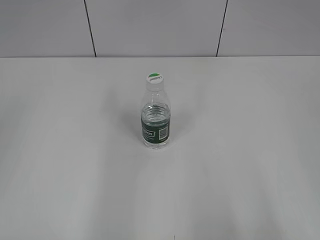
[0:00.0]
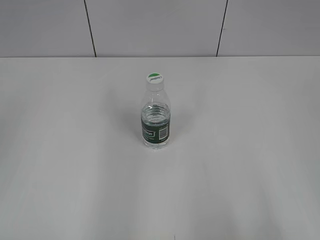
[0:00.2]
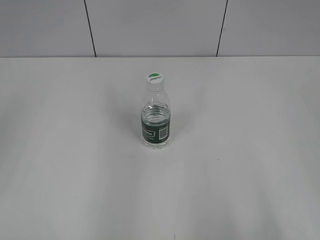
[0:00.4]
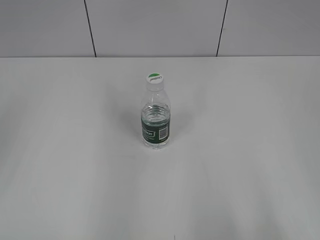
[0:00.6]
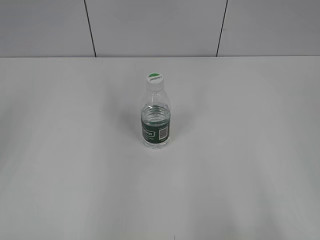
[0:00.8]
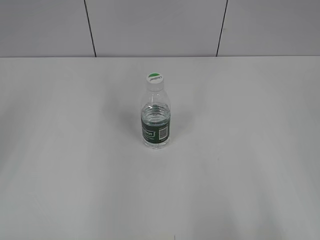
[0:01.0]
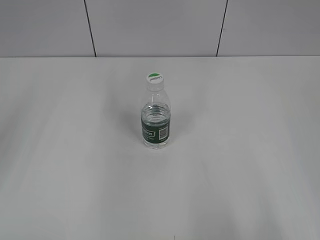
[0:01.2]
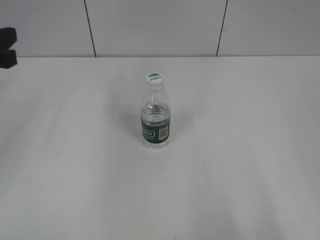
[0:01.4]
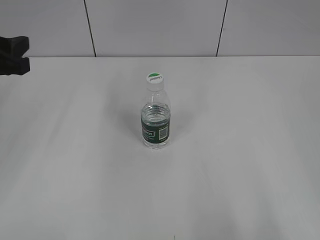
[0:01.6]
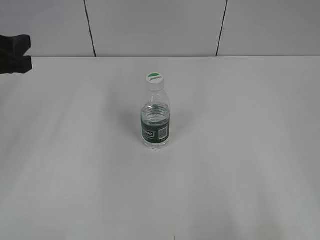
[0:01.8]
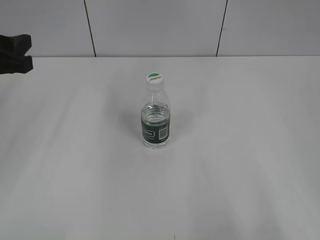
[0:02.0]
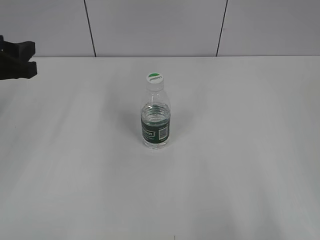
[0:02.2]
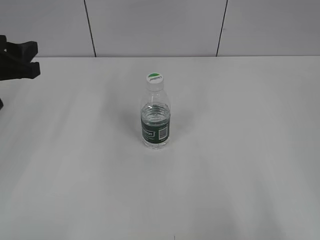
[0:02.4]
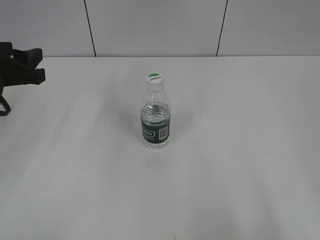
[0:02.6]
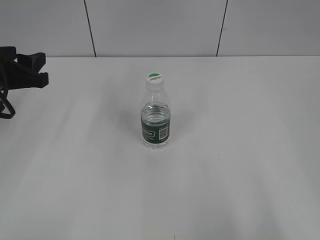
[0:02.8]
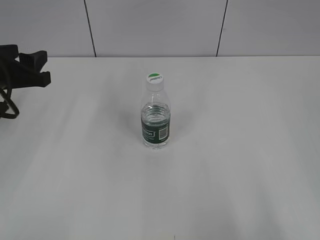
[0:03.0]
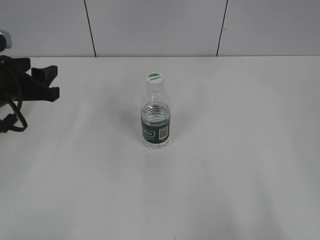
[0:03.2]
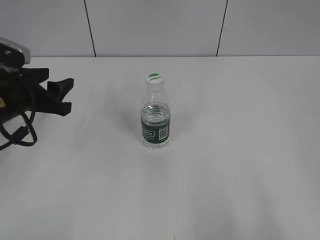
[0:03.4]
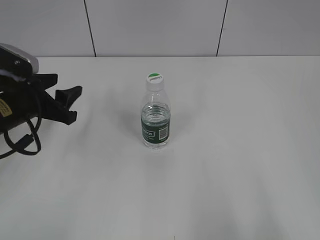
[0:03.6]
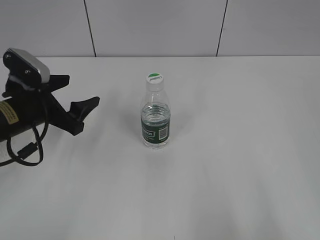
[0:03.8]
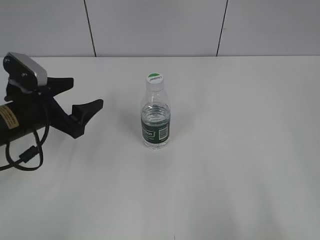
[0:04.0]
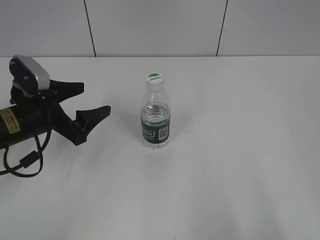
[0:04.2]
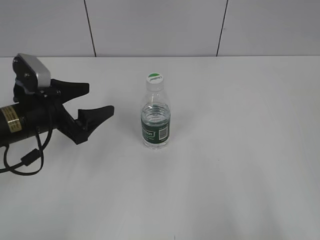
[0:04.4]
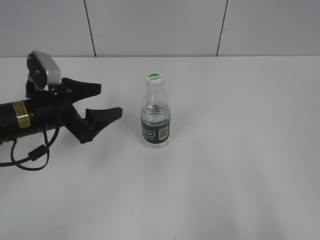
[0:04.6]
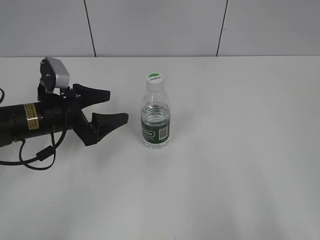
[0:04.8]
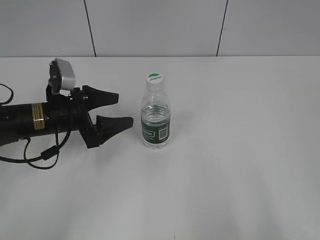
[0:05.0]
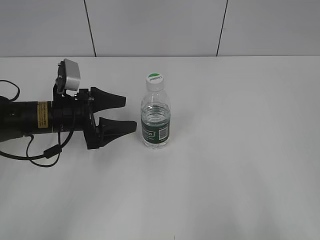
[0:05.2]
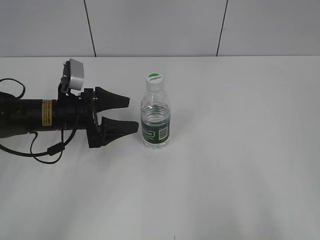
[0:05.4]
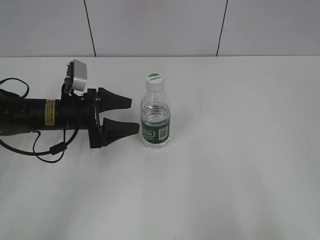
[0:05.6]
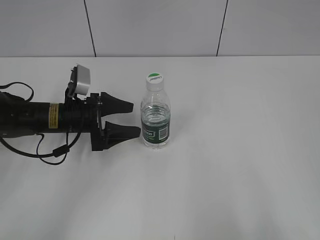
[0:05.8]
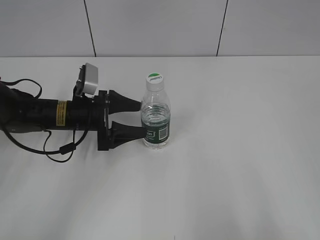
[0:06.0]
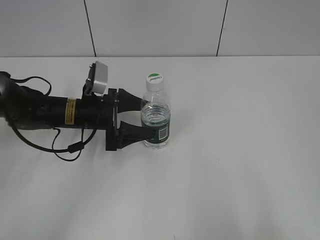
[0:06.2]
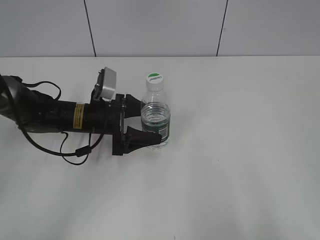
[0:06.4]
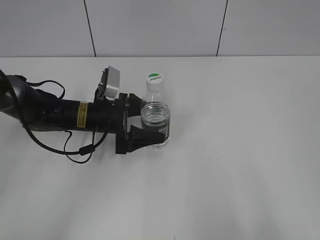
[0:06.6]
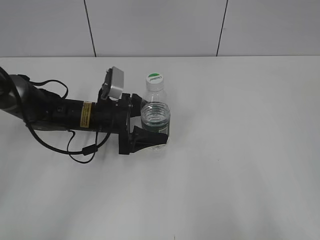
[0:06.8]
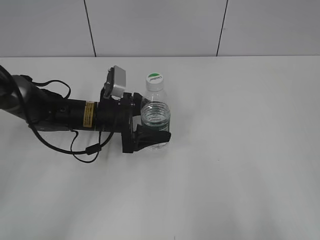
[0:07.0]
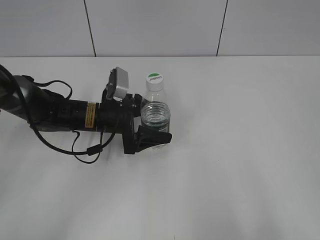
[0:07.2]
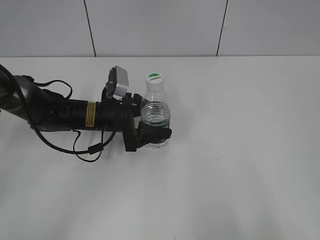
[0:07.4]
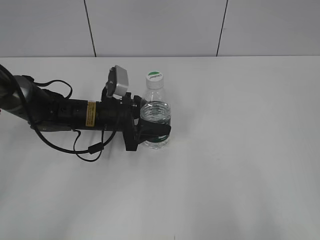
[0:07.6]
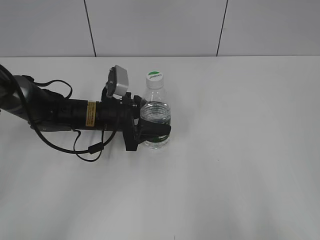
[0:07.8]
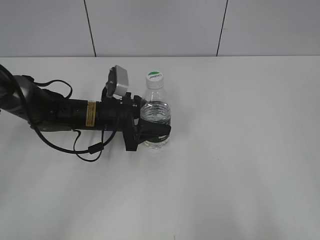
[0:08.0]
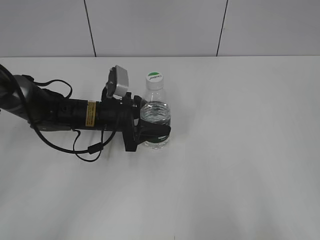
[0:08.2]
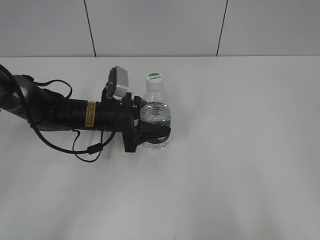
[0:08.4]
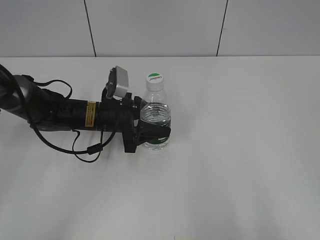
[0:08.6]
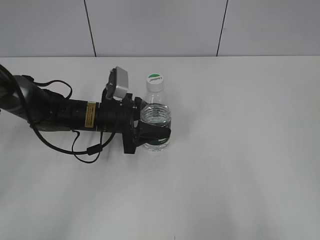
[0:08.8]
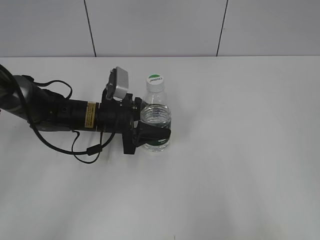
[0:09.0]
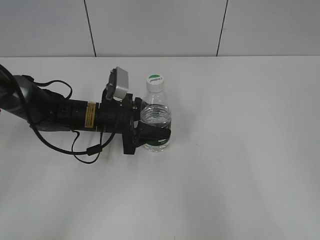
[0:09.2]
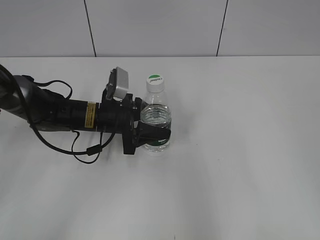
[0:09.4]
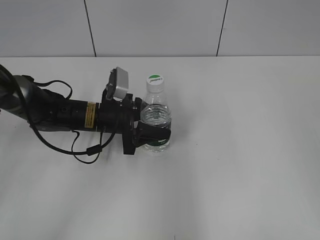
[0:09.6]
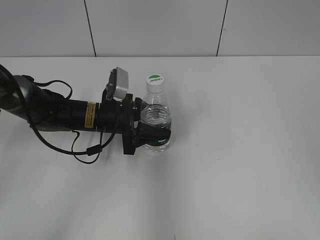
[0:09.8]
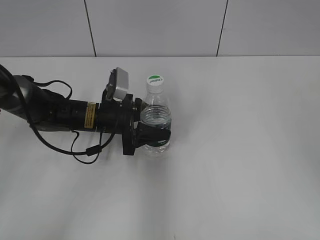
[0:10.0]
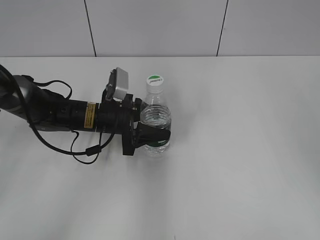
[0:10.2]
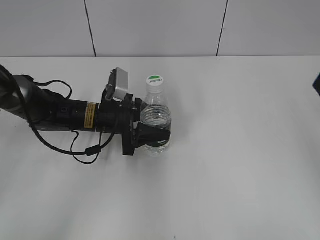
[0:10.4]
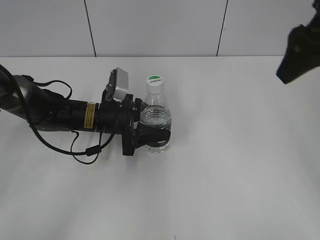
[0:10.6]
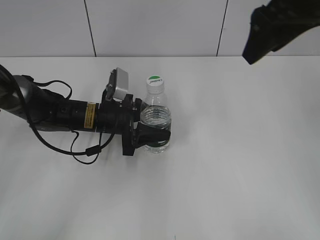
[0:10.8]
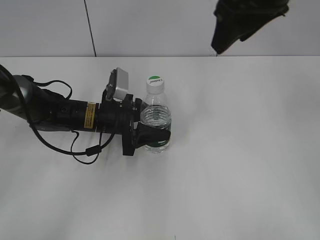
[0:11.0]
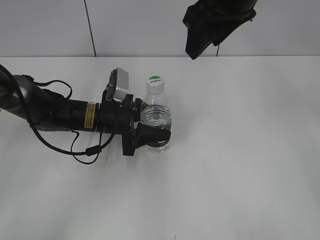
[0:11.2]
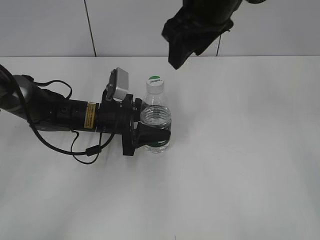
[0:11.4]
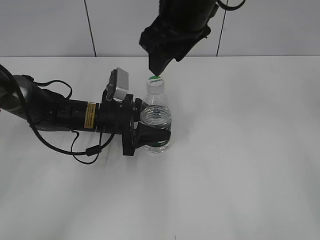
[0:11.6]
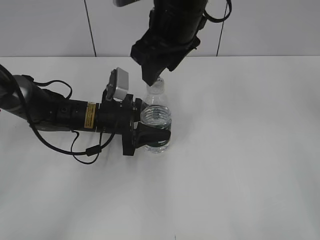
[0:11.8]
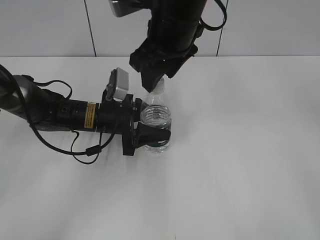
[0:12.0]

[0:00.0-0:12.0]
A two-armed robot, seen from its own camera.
Step, 0:00.0 to 0:10.4: Grasp the bottle and move it to the center of the table with the left gripper.
0:00.0 to 0:01.6: The left gripper shifts about 15 cm forward and downward.
0:01.6 to 0:03.0: The left gripper changes place by roughly 5 cm.
0:03.0 to 0:04.4: The left gripper heads downward, covering about 5 cm, and opens.
0:04.4 to 0:06.0: The left gripper heads forward and downward, covering some 10 cm.
0:06.0 to 0:07.6: The left gripper heads to the right, covering roughly 5 cm, and closes up.
0:07.6 to 0:09.0: Neither gripper changes place.
0:09.0 to 0:10.4: The right gripper heads forward, covering about 25 cm.
0:10.4 to 0:12.0: The right gripper heads to the left, covering approximately 25 cm.

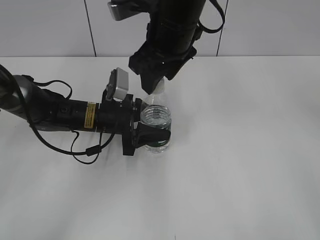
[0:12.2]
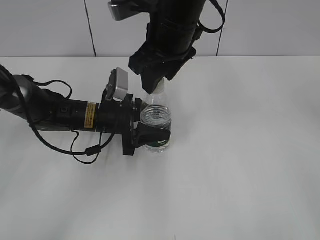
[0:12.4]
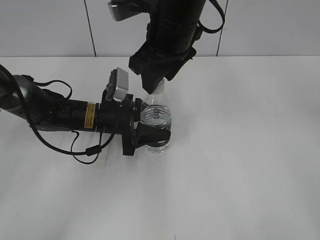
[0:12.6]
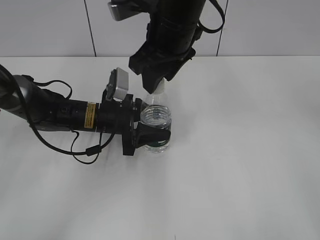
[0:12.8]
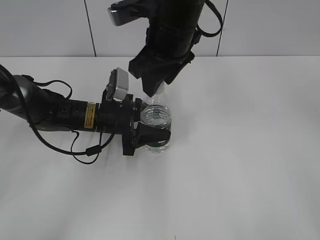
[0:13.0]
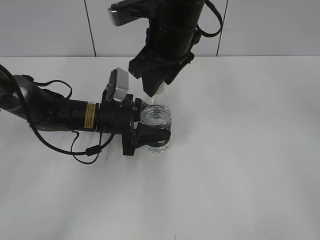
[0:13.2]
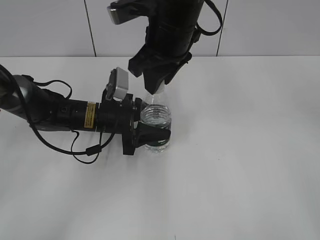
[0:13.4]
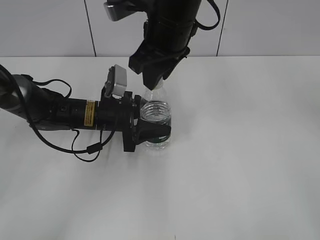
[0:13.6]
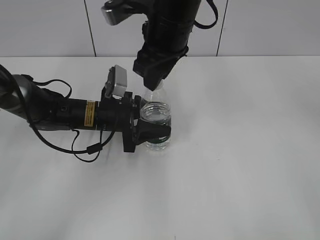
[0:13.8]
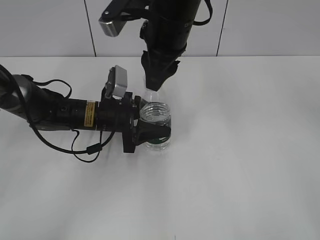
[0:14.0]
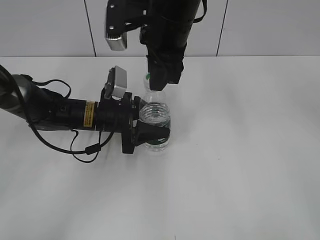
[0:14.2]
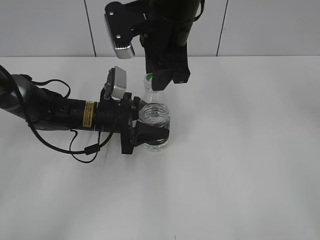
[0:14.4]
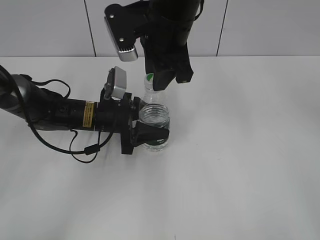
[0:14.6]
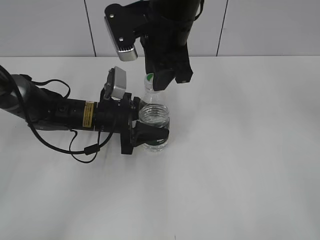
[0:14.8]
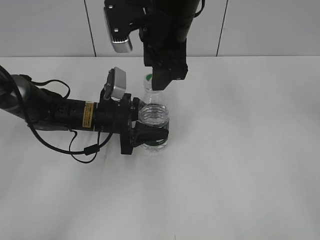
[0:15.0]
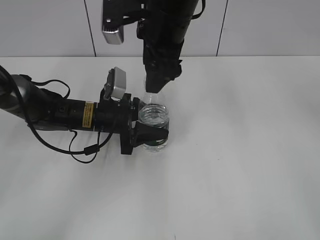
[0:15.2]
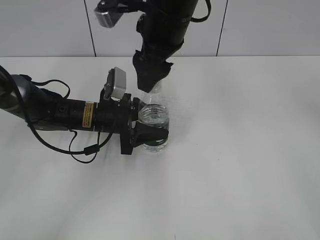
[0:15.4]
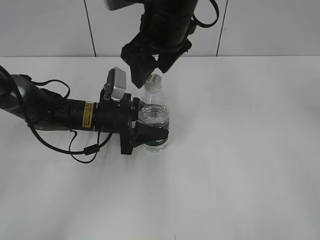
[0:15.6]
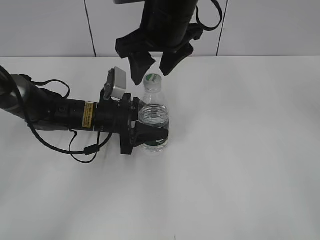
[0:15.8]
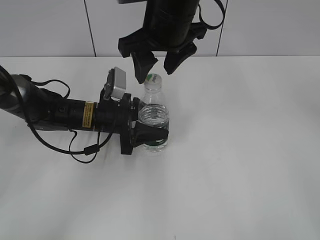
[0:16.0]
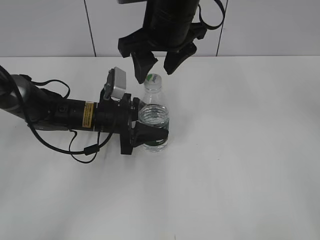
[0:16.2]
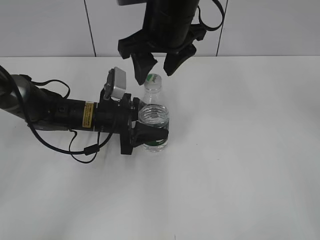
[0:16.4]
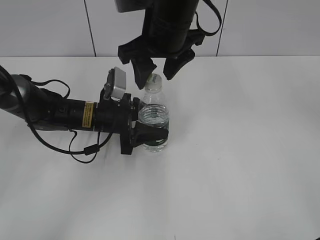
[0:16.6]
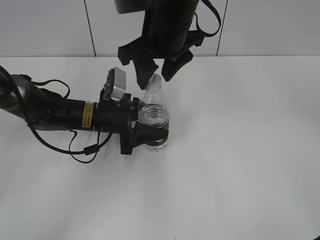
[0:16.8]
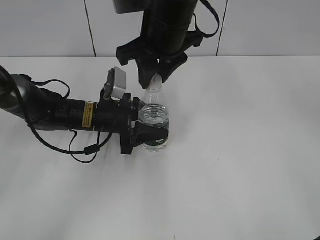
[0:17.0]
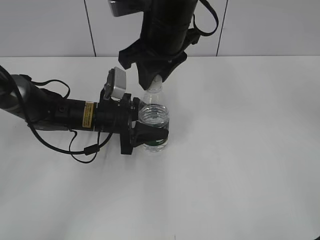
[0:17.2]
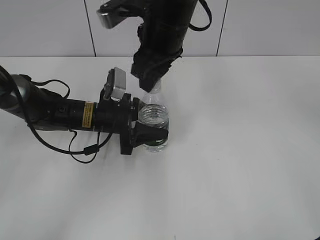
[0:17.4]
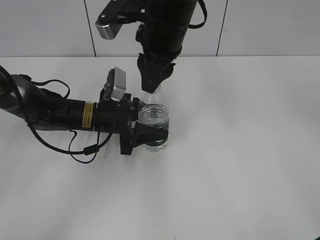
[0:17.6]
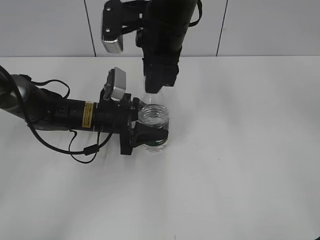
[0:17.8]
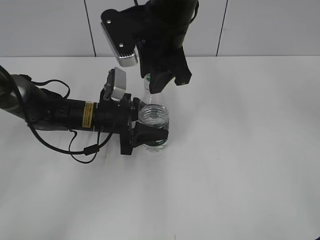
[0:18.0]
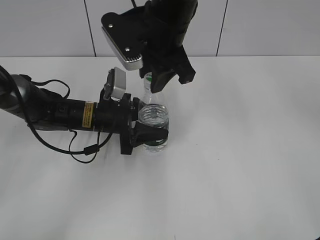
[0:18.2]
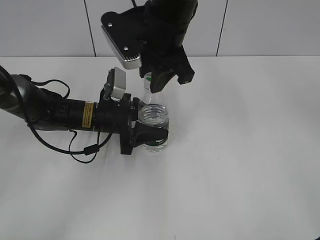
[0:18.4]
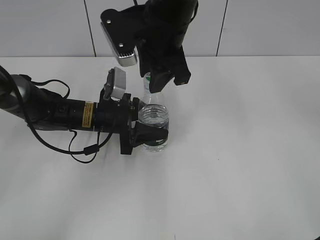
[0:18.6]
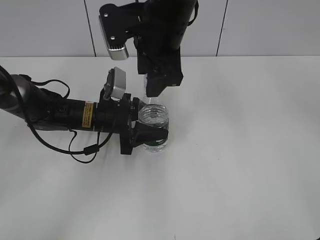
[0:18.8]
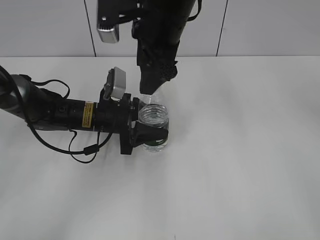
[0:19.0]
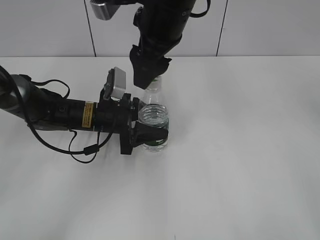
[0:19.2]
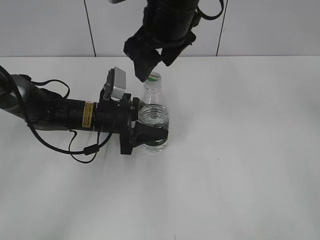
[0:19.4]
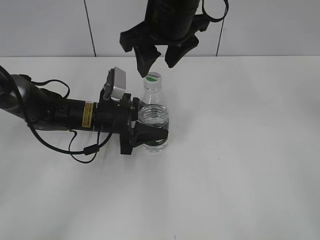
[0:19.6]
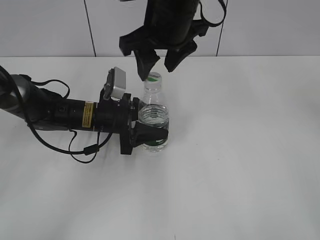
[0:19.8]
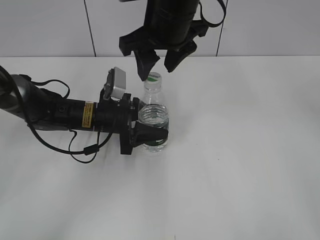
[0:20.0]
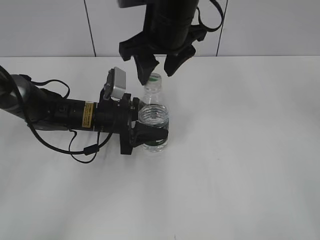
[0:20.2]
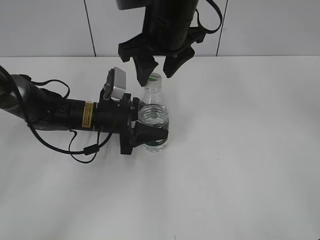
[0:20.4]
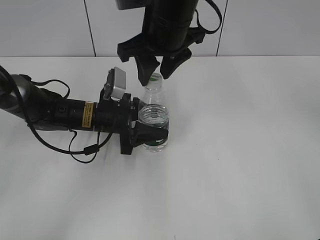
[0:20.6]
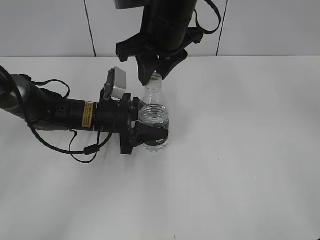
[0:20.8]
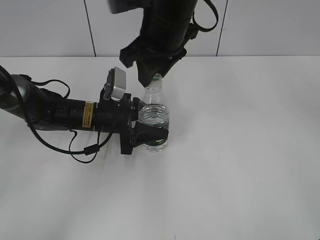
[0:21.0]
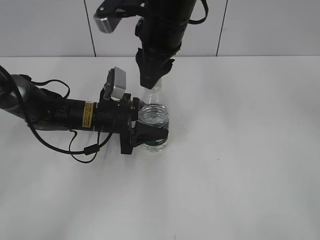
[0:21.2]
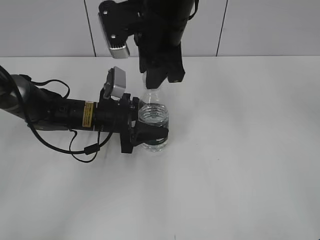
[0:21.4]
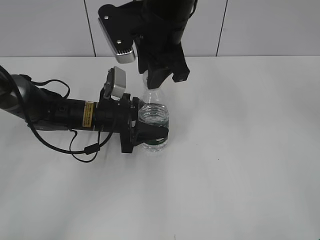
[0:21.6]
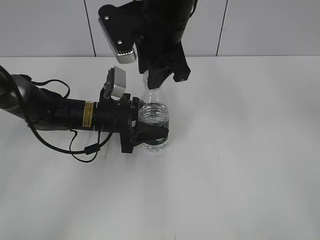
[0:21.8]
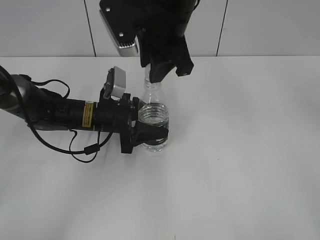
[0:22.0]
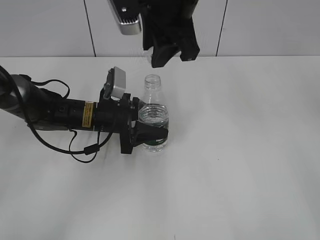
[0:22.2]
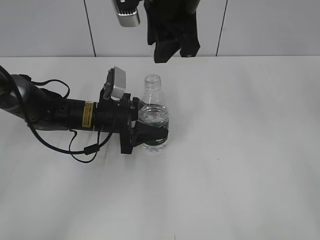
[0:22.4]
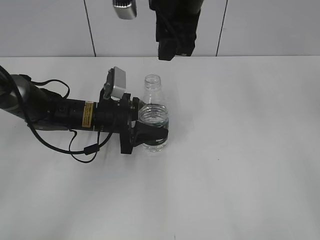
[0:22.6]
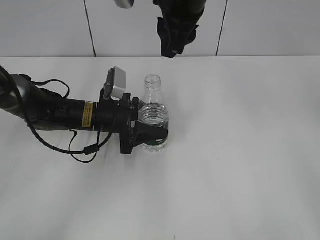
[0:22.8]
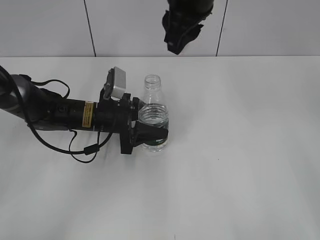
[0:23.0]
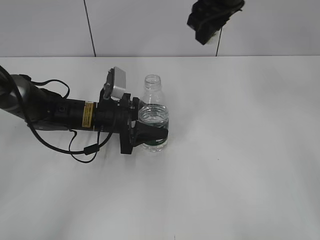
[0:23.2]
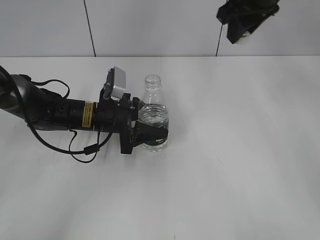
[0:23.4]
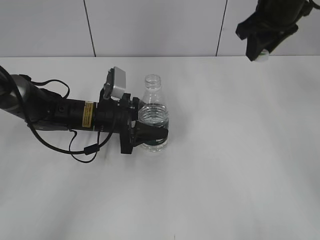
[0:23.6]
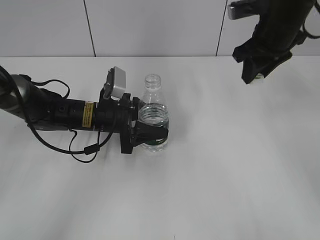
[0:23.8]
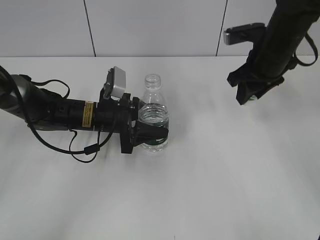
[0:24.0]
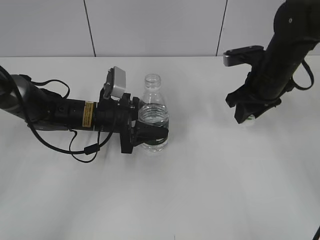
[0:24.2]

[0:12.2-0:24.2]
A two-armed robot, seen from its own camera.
Step, 0:12.2 to 0:22.0: Unscrew the bottle cap with the right gripper while holding the bottle with the left gripper.
0:12.2 to 0:13.8: The right gripper closes up.
0:13.8 to 0:15.2: The right gripper opens up.
0:16.6 to 0:18.2: The right gripper closes its fingers.
0:18.2 to 0:19.8: The right gripper opens.
0:19.8 to 0:21.2: The right gripper closes.
0:21.2 to 0:22.6: The right gripper shifts by approximately 5 cm.
0:22.6 to 0:24.2: The right gripper travels to the right and downward by about 25 cm.
